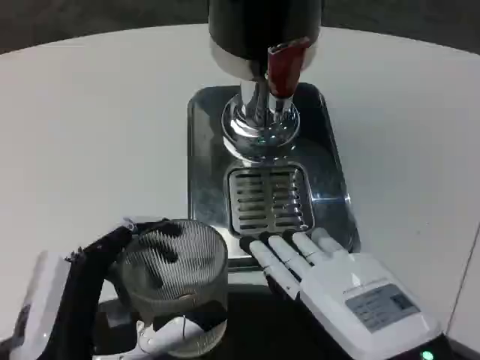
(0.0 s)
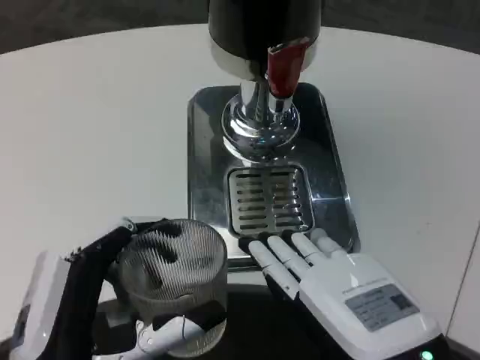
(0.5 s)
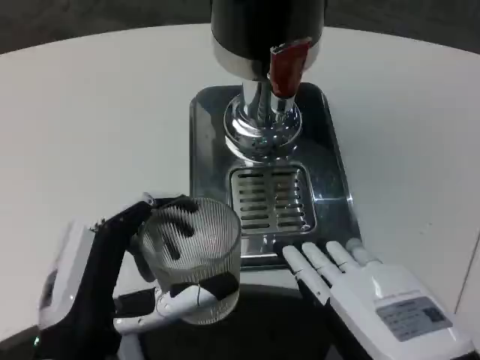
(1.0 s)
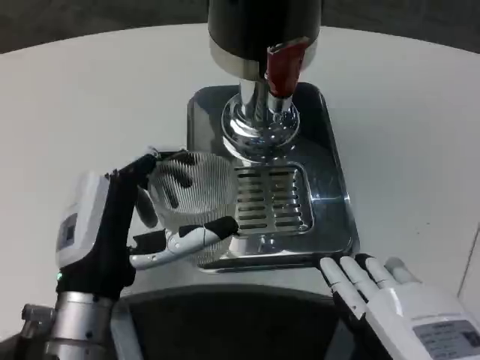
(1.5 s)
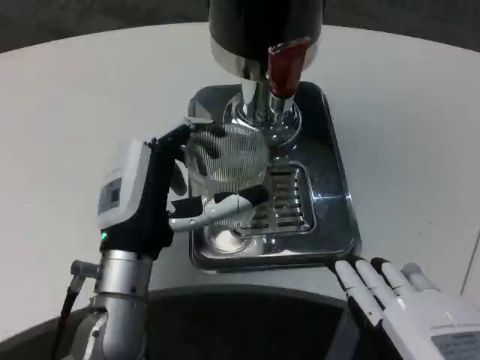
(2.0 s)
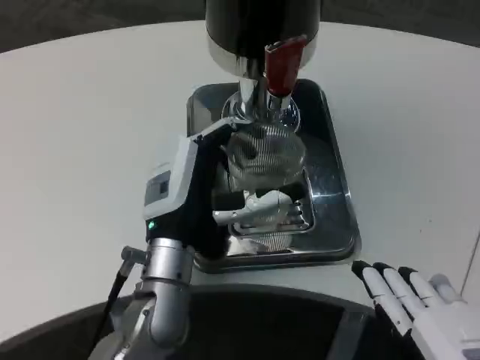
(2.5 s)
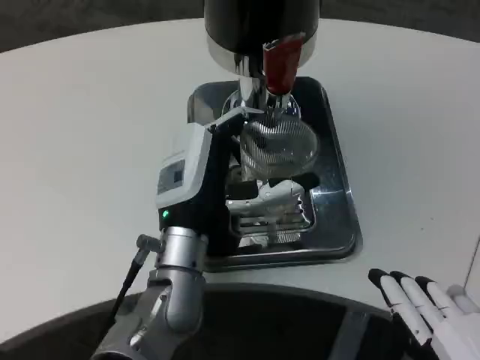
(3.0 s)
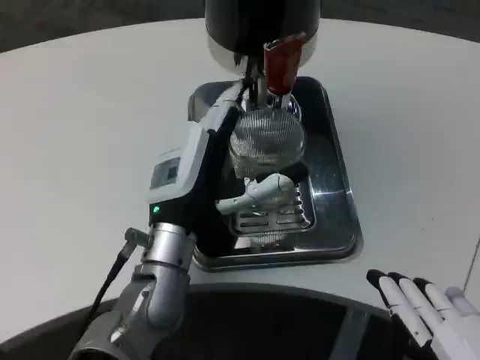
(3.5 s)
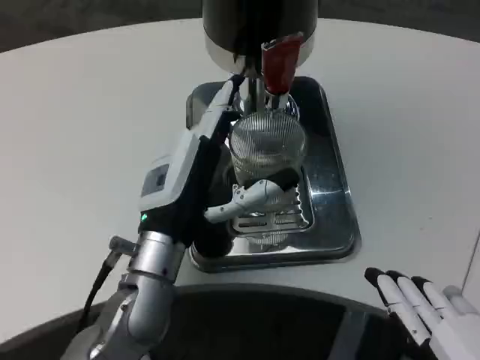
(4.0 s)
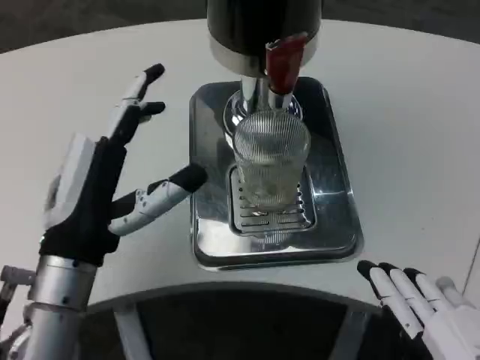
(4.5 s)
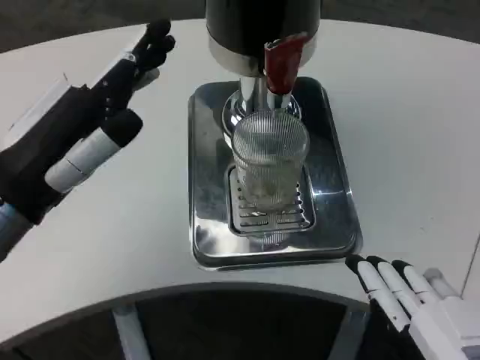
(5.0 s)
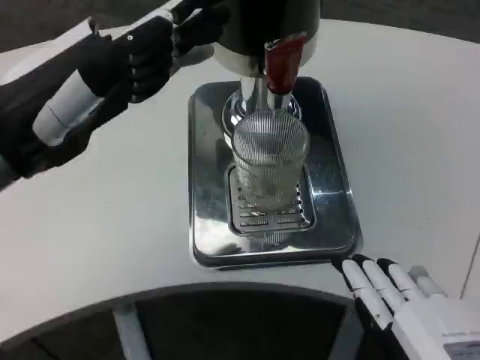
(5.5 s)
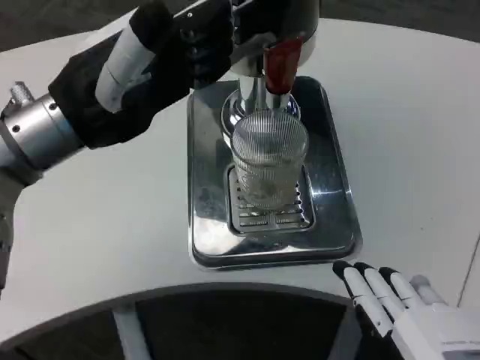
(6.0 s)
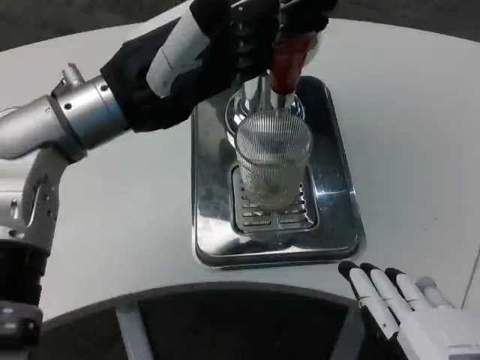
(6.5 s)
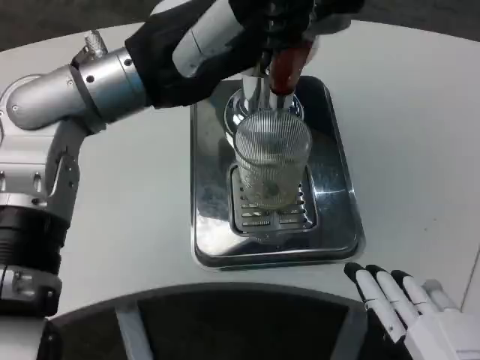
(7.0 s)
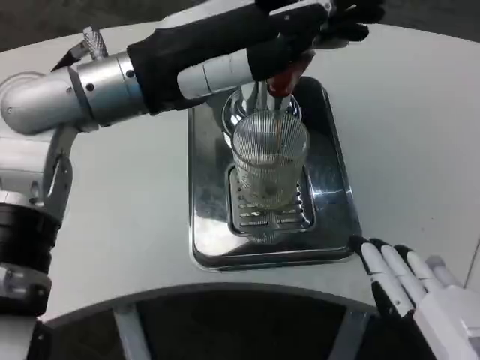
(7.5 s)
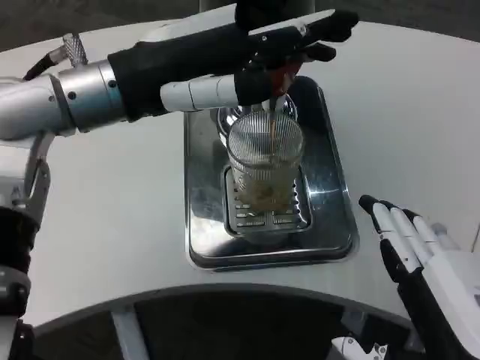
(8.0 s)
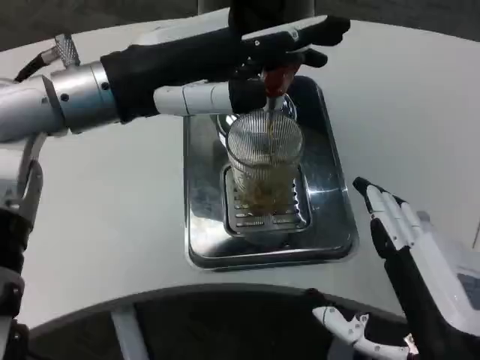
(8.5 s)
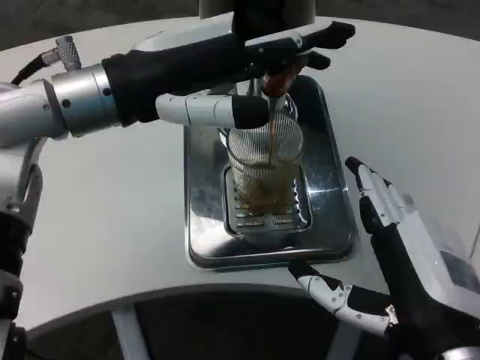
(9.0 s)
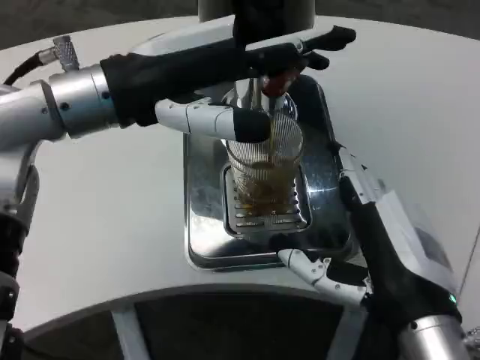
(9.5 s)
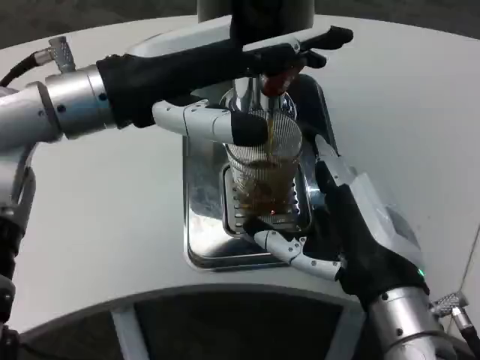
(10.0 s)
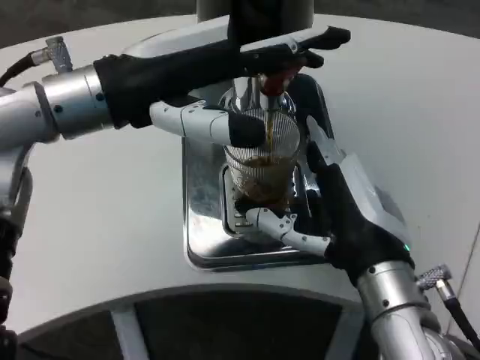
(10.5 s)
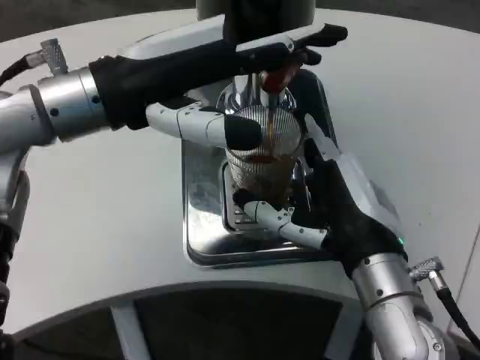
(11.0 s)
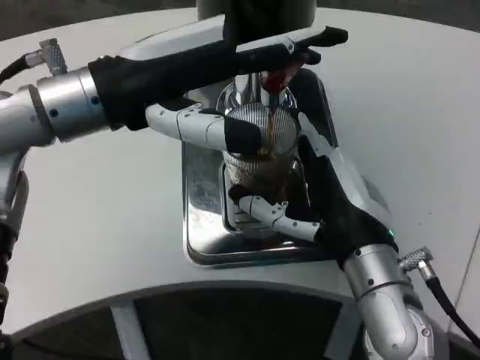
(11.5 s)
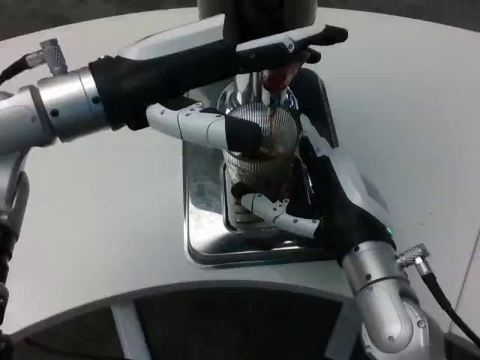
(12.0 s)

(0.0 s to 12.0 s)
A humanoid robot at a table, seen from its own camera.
Task of the whole recording: Grasp the cup under the faucet to collect the drink, then remove the cup.
0.0 s - 2.0 s: The left hand moves forward, approximately 15 cm.
4.0 s - 6.0 s: The left hand travels upward and to the left by roughly 20 cm.
8.0 s - 10.0 s: The right hand shifts roughly 10 cm forward.
10.0 s - 12.0 s: The right hand moves forward, some 5 cm.

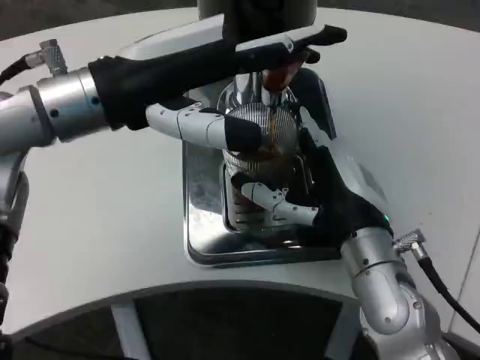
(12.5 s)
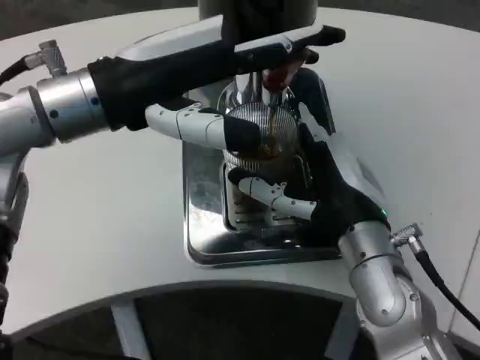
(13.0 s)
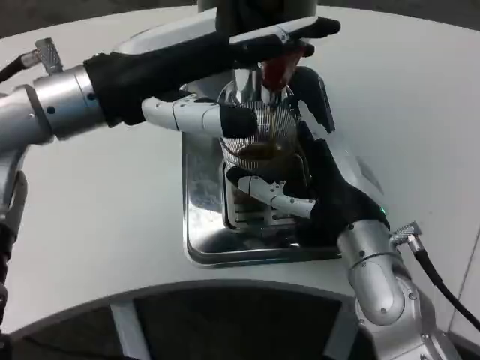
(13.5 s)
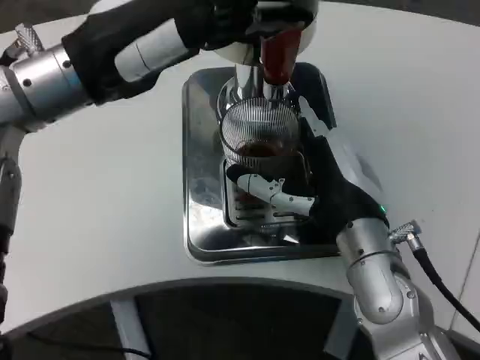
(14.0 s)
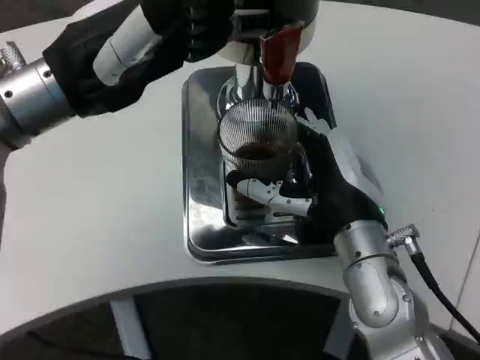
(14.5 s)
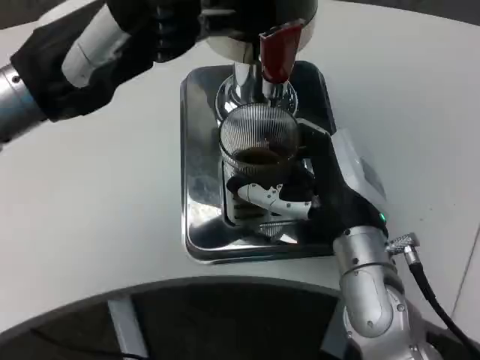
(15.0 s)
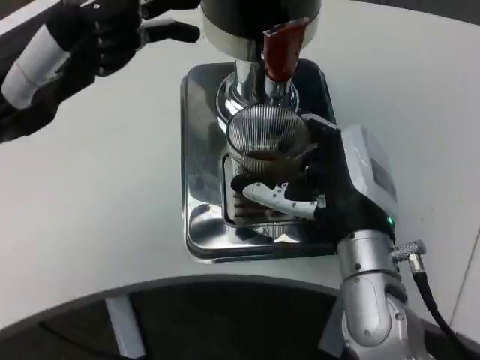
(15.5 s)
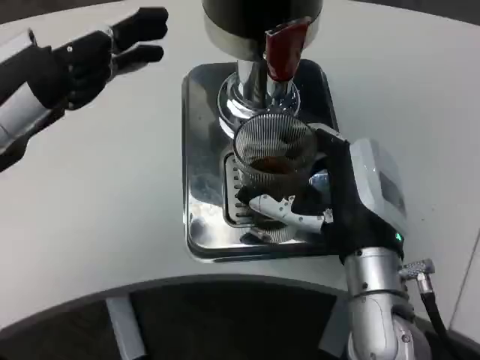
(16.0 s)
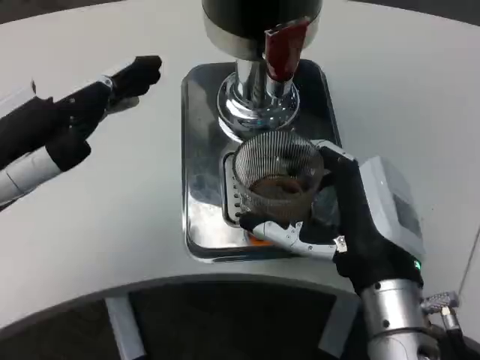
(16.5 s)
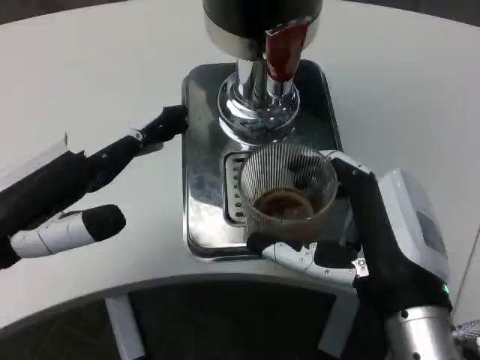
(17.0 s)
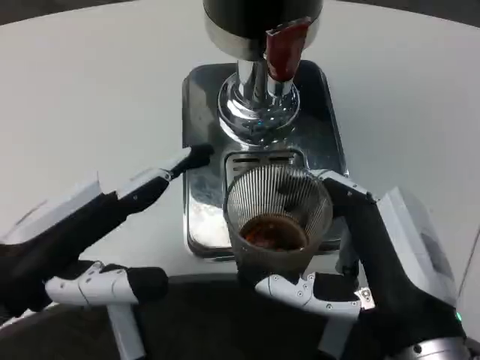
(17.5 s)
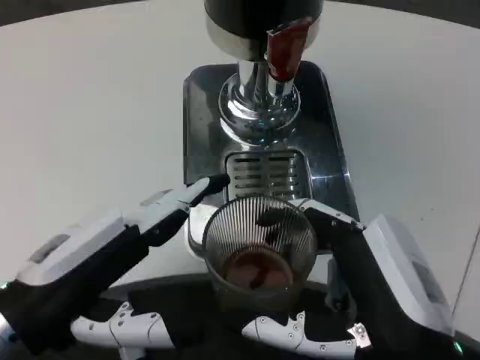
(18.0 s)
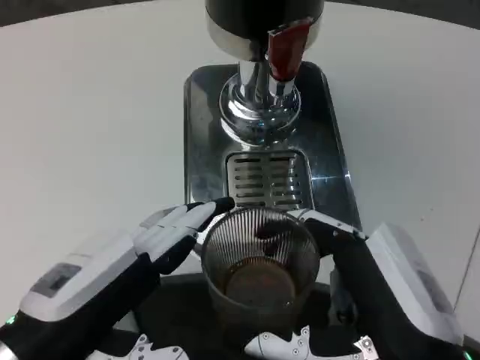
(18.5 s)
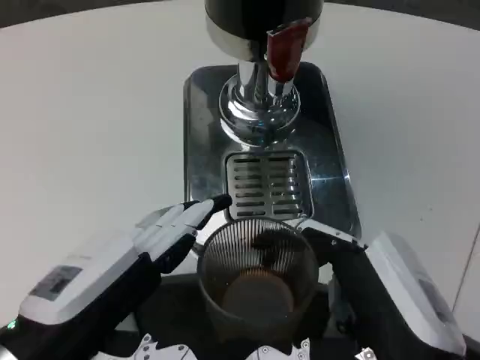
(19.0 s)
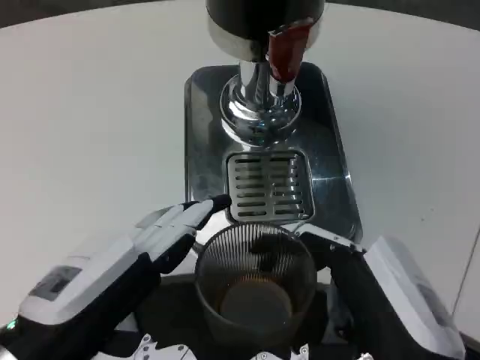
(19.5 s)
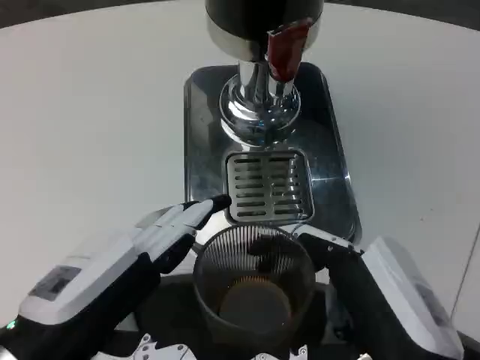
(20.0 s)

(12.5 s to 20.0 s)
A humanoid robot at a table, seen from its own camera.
Task of the whole recording: Grasp the cup under the faucet to collect the drink, then remove the cup.
14.5 s - 16.5 s: The left hand is displaced backward, to the left and downward by approximately 15 cm. Meanwhile the right hand shifts about 5 cm backward.
16.5 s - 18.0 s: The right hand travels backward by roughly 10 cm; the left hand travels downward, to the right and backward by some 10 cm.

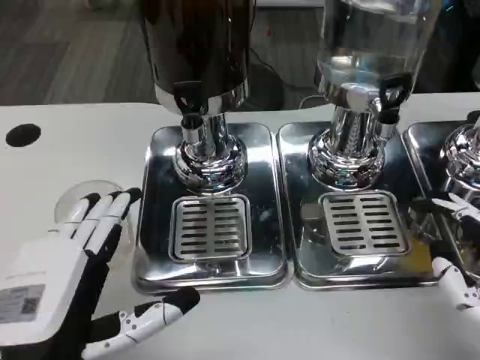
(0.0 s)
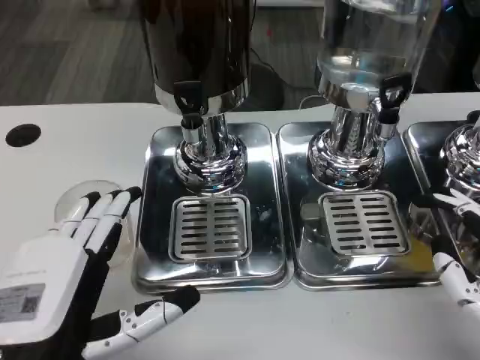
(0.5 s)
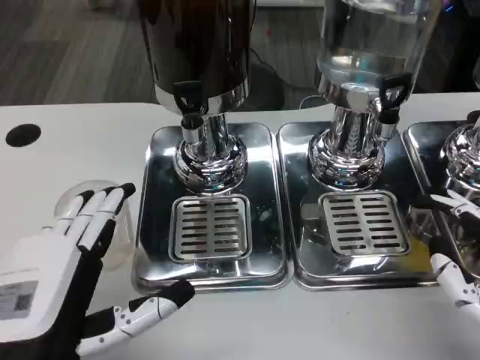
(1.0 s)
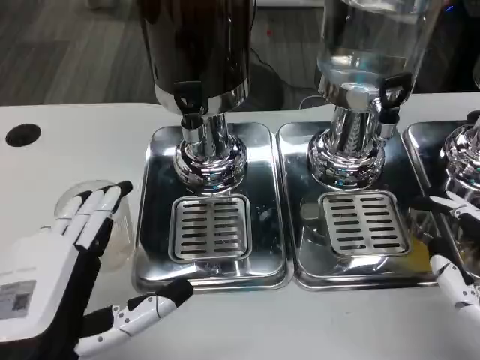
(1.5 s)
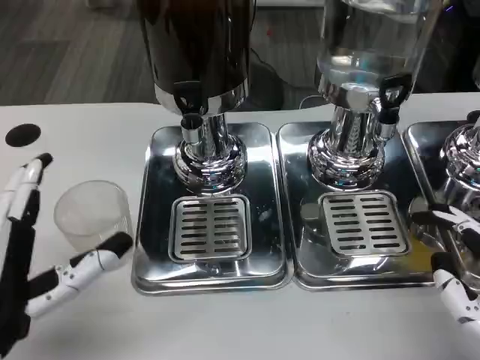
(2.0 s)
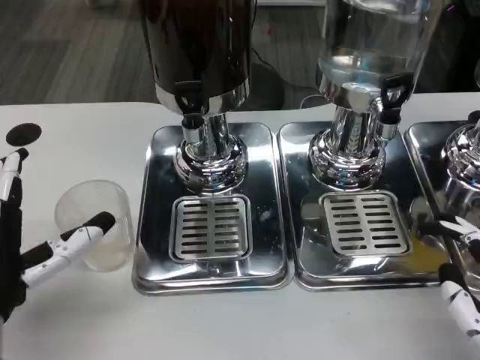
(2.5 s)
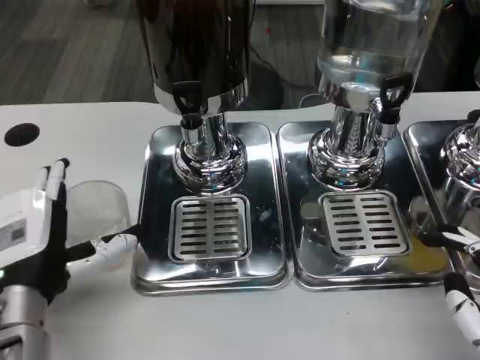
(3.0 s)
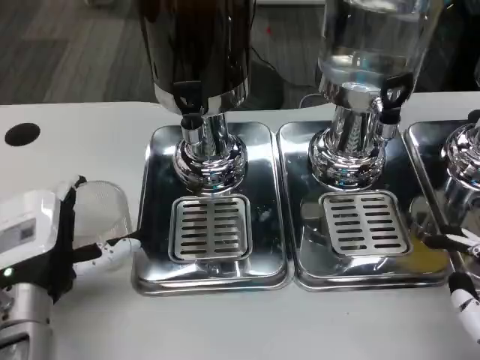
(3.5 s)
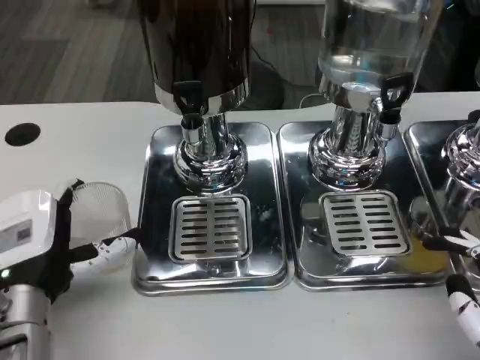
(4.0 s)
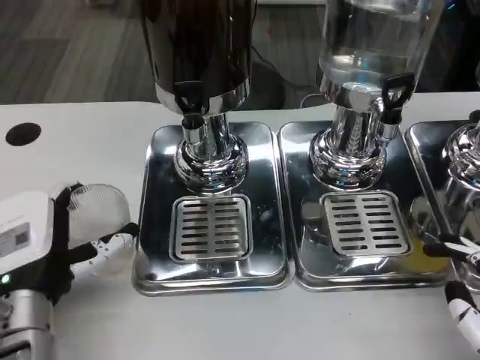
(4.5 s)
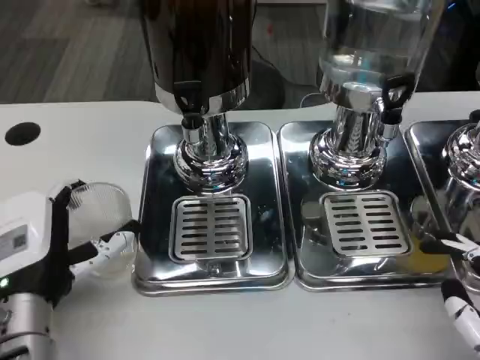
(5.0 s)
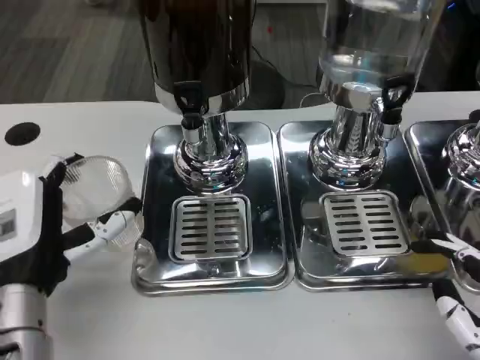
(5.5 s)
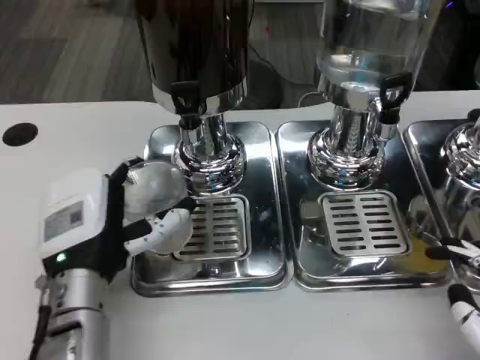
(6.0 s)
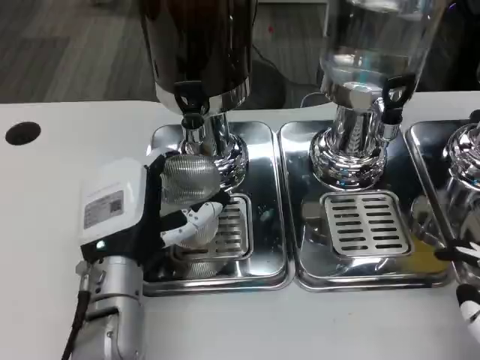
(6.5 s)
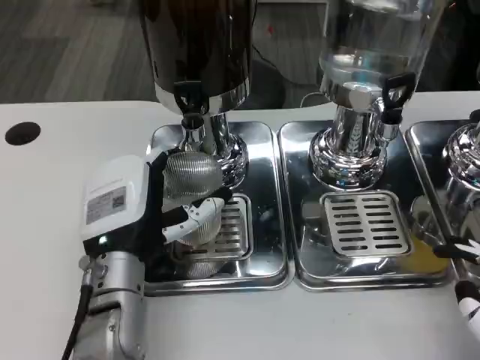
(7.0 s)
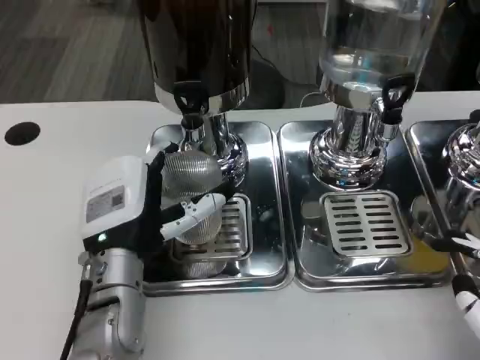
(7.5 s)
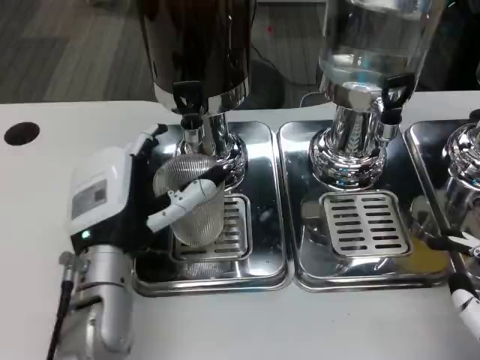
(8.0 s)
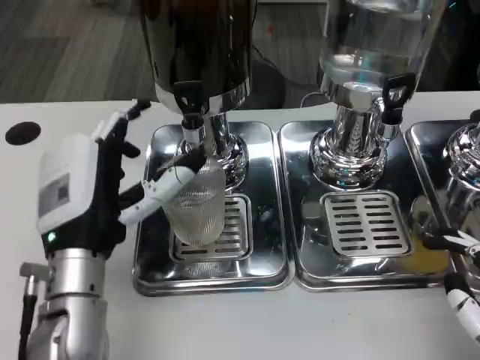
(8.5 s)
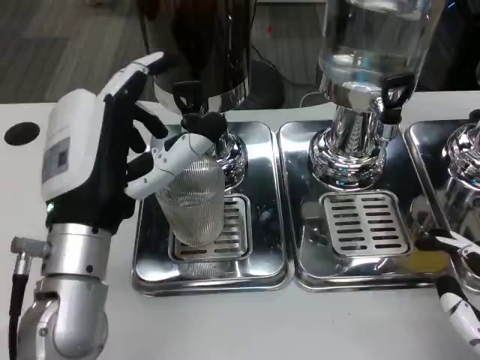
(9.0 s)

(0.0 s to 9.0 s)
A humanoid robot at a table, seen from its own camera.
Task of the whole recording: Grasp the cup under the faucet to collect the drink, then remove the cup.
0.0 s - 2.0 s: There are only small adjustments of the hands.
2.0 s - 4.5 s: The left hand moves forward, roughly 5 cm.
4.5 s - 7.0 s: The left hand heads to the right, covering about 5 cm.
7.0 s - 9.0 s: The left hand is displaced upward by roughly 5 cm.
